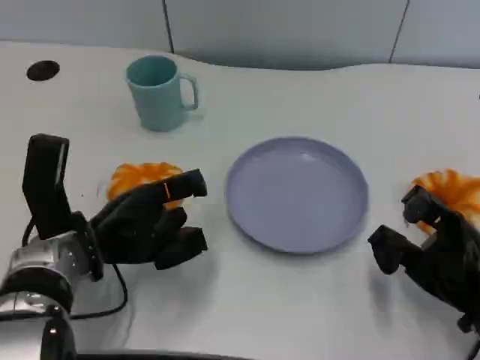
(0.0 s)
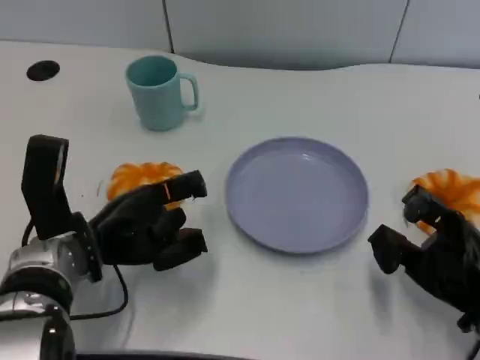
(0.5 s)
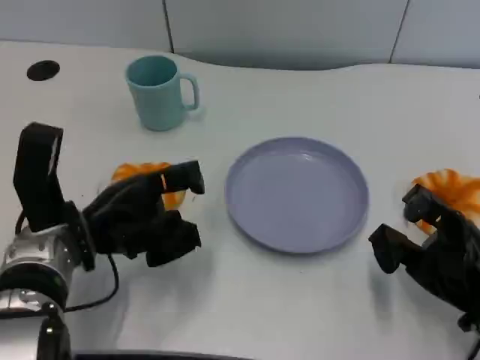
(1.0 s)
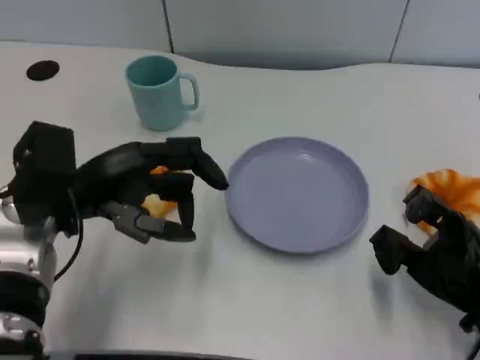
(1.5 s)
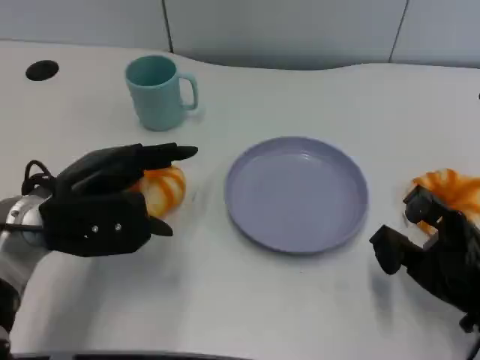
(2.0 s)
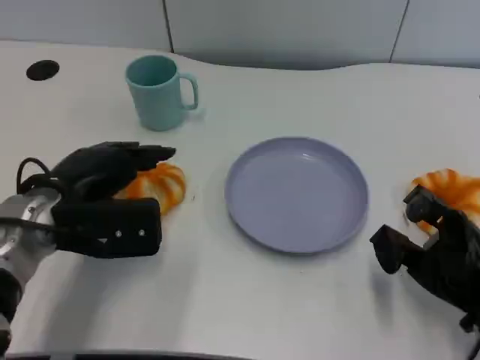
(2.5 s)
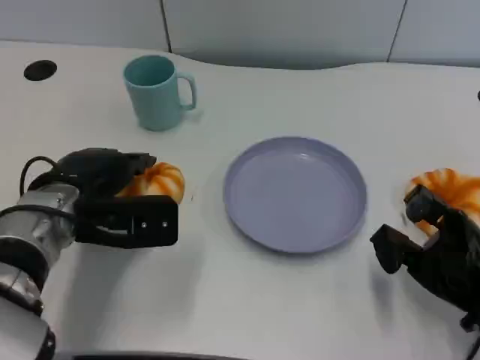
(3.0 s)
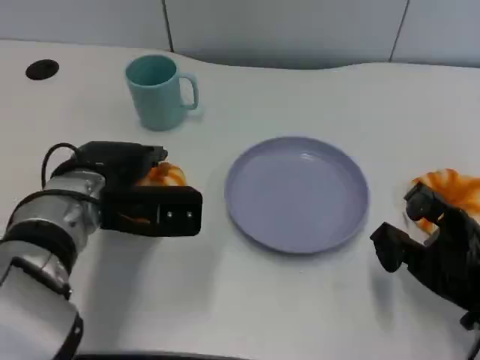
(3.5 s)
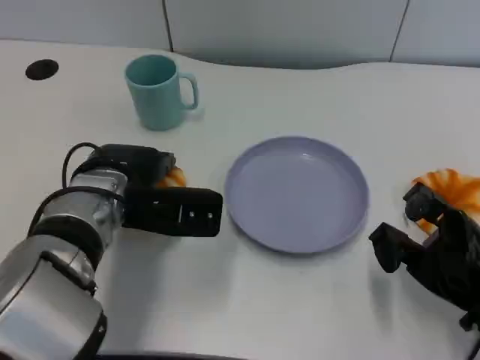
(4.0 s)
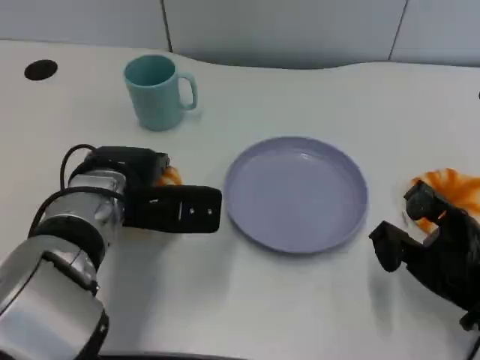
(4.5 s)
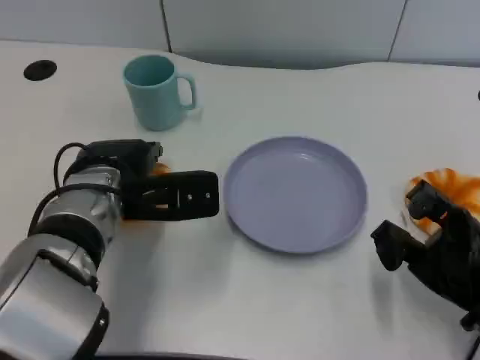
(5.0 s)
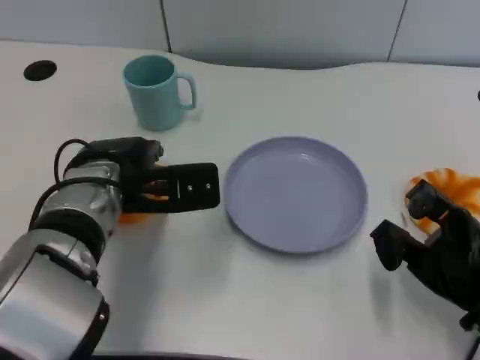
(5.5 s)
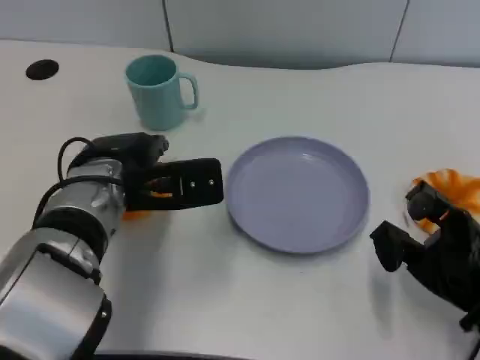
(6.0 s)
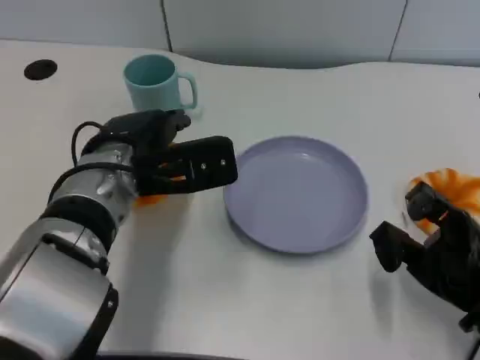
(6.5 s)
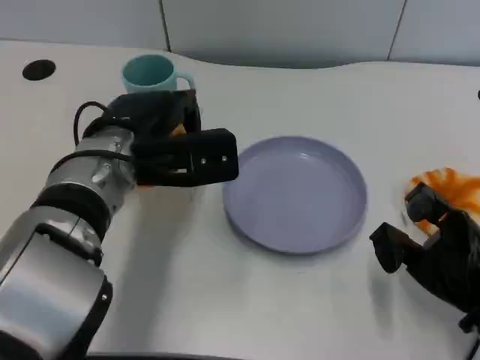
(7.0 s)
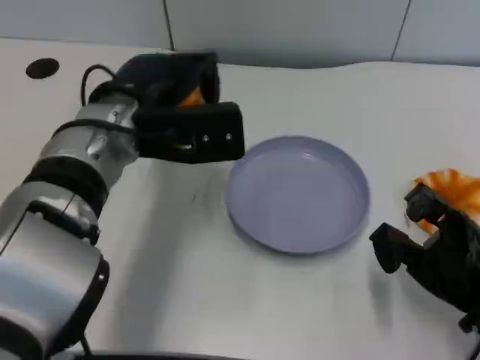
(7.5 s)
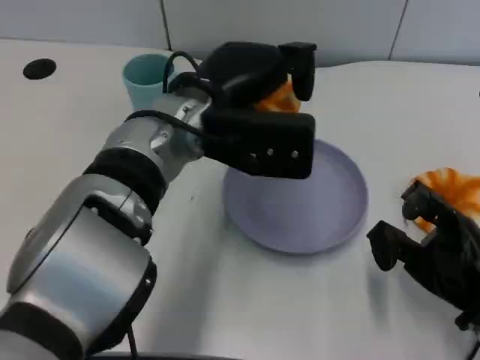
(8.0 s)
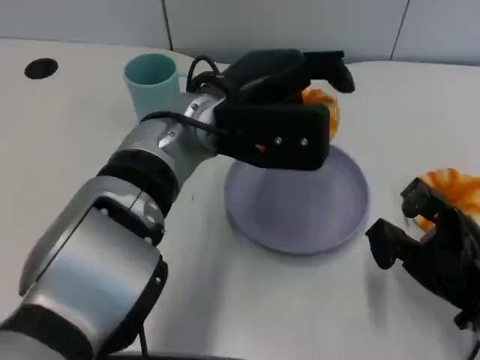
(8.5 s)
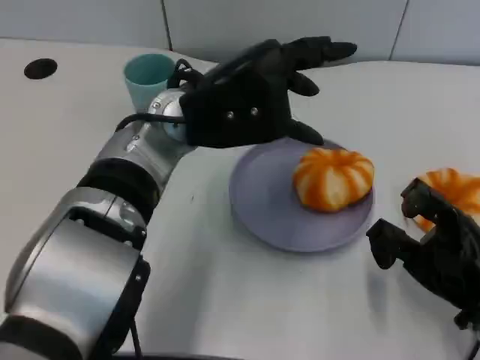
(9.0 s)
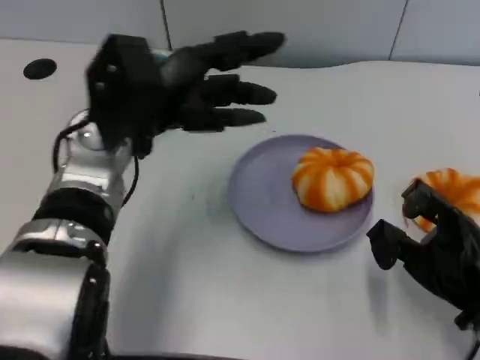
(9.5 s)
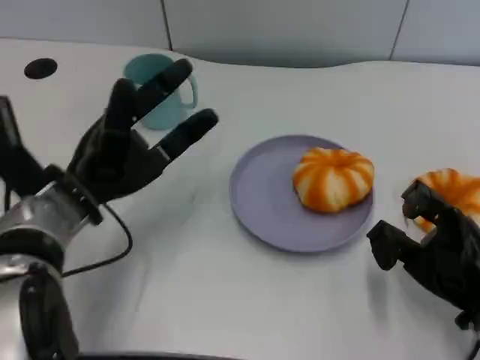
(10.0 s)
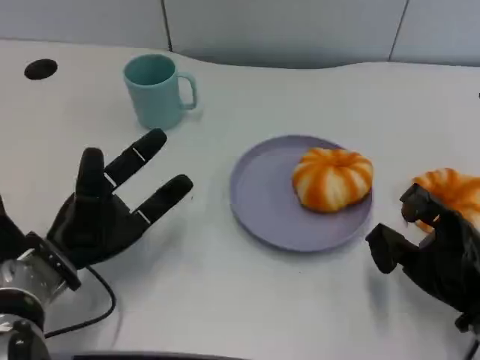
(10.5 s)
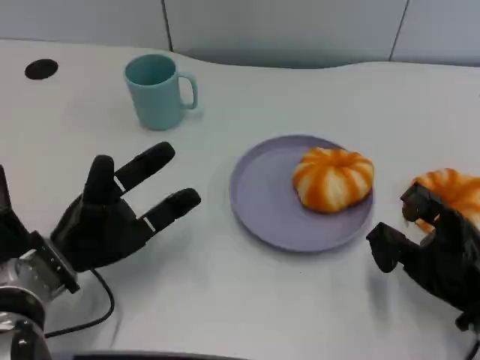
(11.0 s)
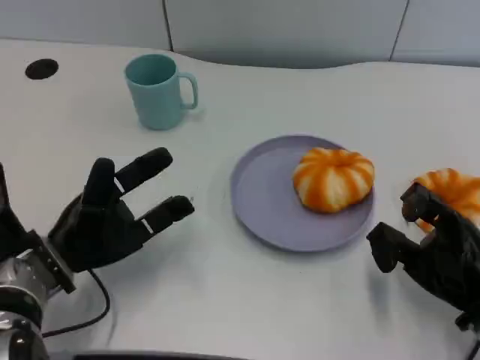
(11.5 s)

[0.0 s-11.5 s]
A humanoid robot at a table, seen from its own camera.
Task of the whole recording: Grasp the bread from the table and place it into the plate.
0.0 to 2.0 s: The left hand heads upward, covering about 5 cm.
2.0 to 4.0 s: The left hand goes some 5 cm to the right.
4.0 to 6.0 s: The hands move only a little.
6.0 to 7.5 s: The left hand goes some 5 cm upward.
7.5 to 9.5 s: The left hand travels to the right and back again, about 5 cm each way.
9.5 to 11.5 s: The left hand is displaced downward, to the left and backward by some 15 cm.

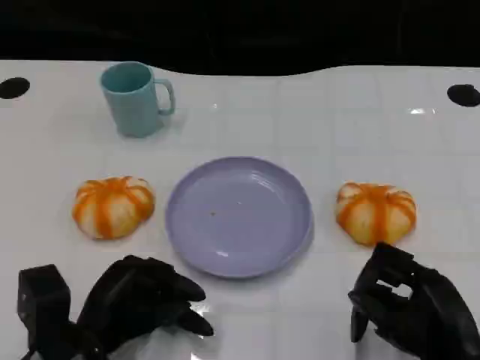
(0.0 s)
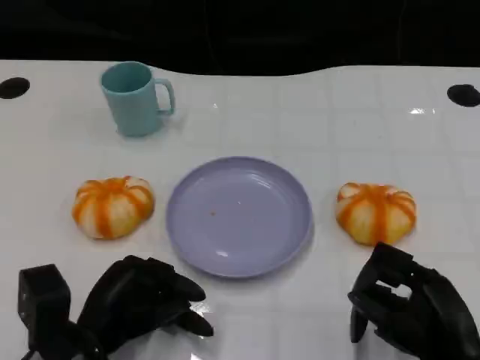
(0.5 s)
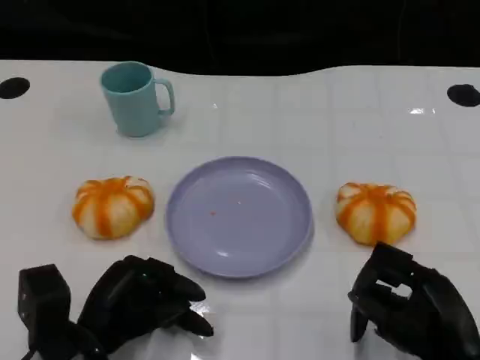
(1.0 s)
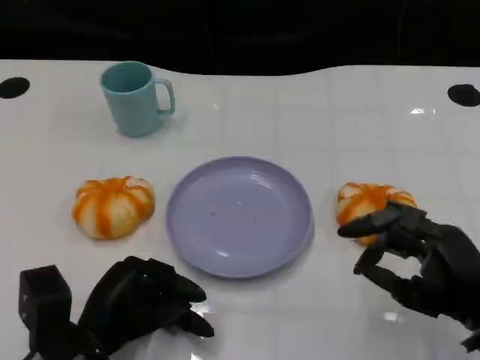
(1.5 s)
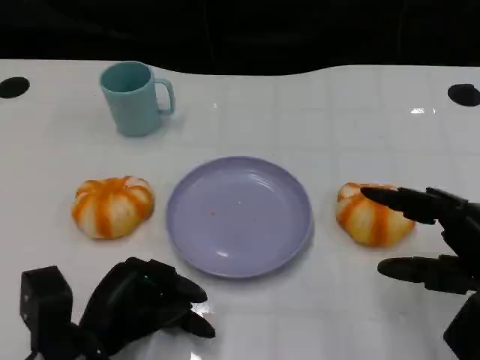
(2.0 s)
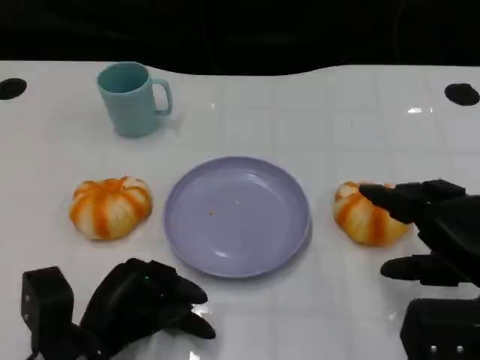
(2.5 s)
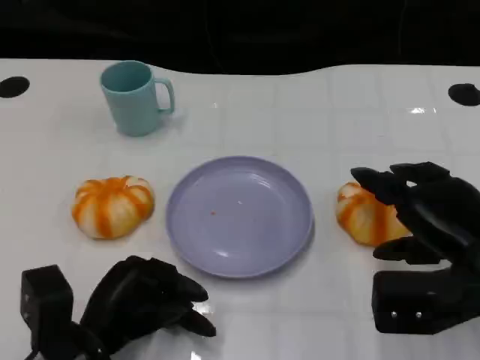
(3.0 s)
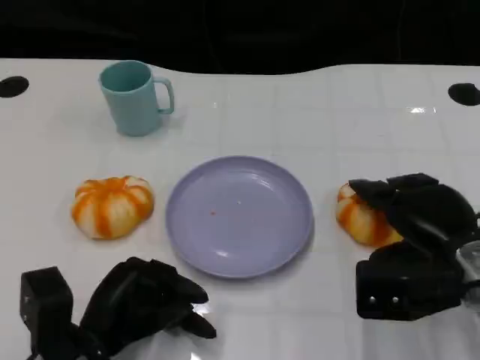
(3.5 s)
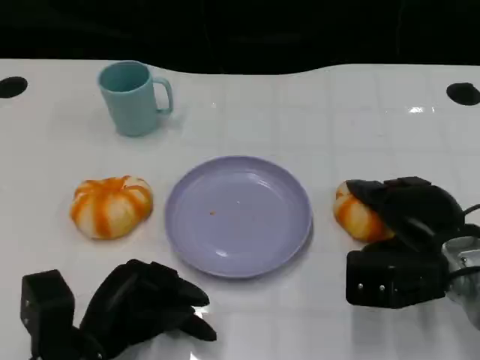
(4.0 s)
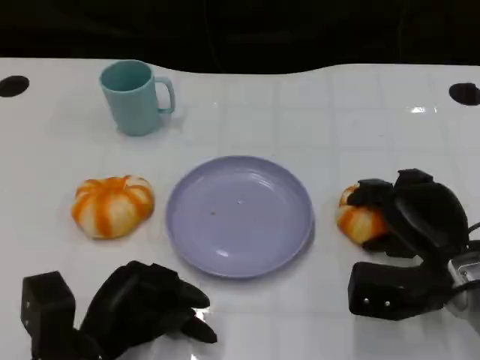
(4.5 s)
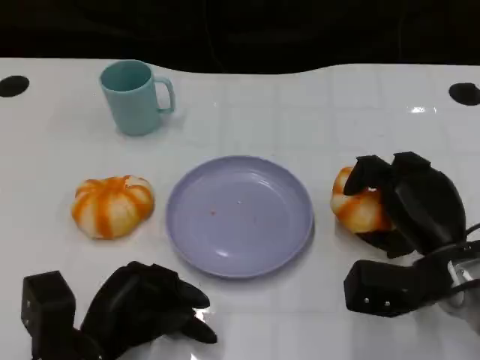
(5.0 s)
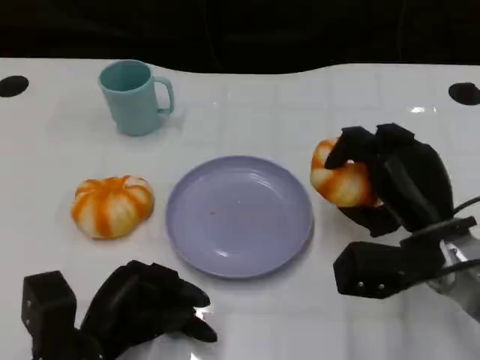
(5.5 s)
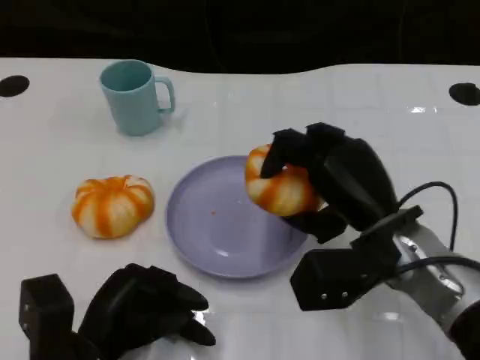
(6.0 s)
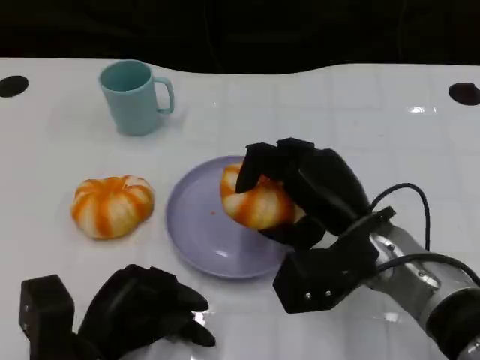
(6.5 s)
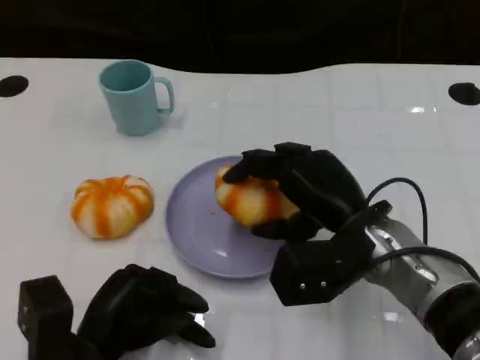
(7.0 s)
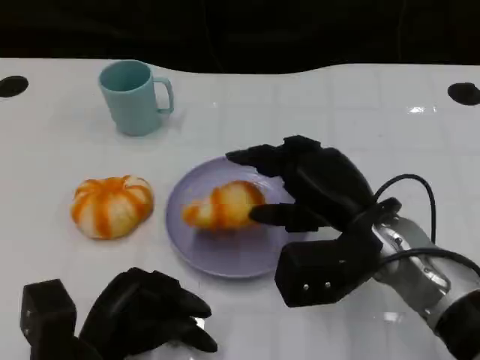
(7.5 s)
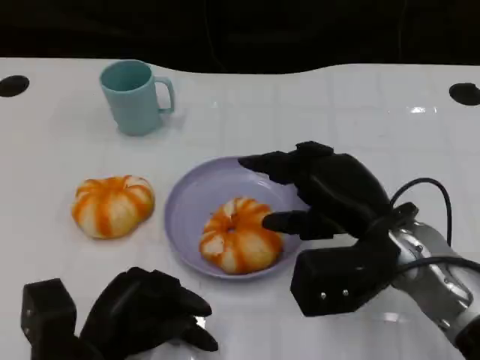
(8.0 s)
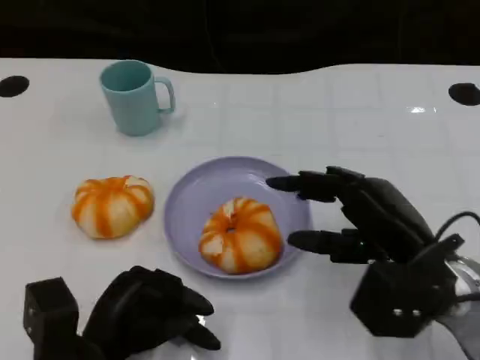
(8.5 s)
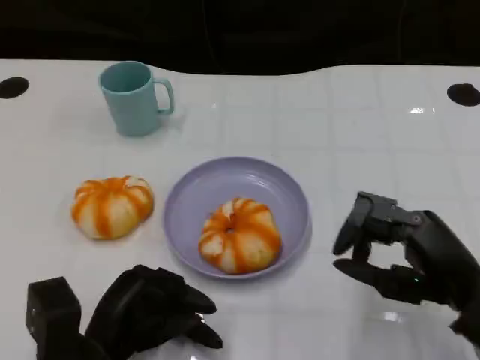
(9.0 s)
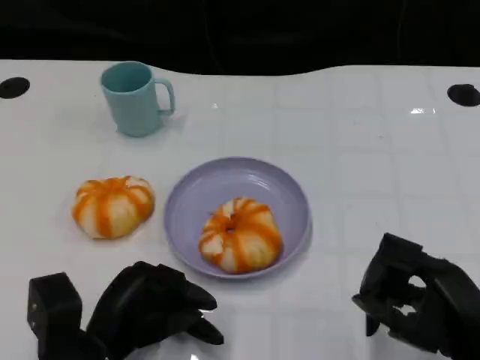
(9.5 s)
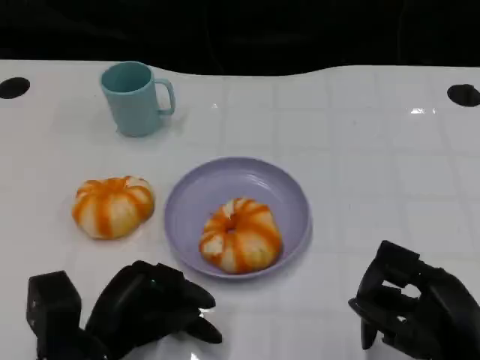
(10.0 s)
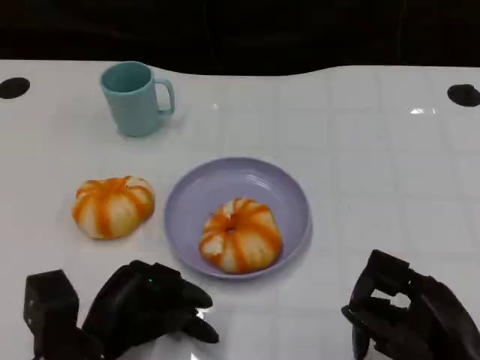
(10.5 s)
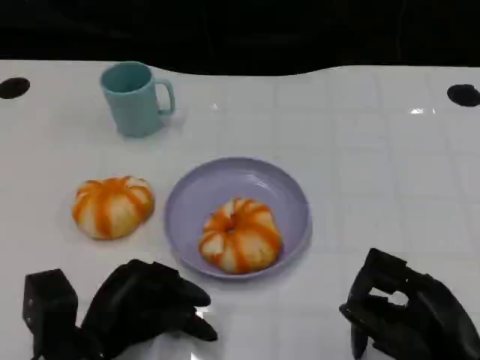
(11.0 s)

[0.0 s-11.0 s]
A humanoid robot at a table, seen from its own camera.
Task of the whole recording: Grasp the bread from the table and place it into the plate.
0.0 to 2.0 s: The right hand goes approximately 5 cm upward.
2.0 to 3.5 s: The right hand is displaced forward by roughly 5 cm.
5.5 to 7.5 s: The right hand travels to the left by about 5 cm.
7.5 to 9.0 s: The right hand travels to the right and backward by approximately 15 cm.
9.0 to 11.0 s: The right hand ends up approximately 5 cm from where it was.

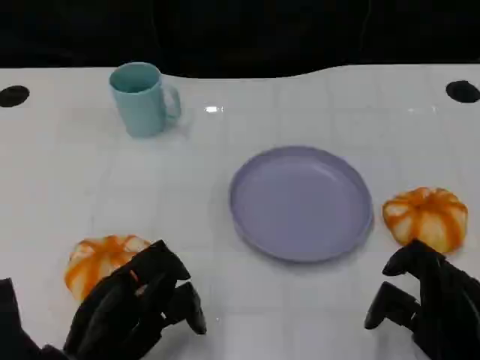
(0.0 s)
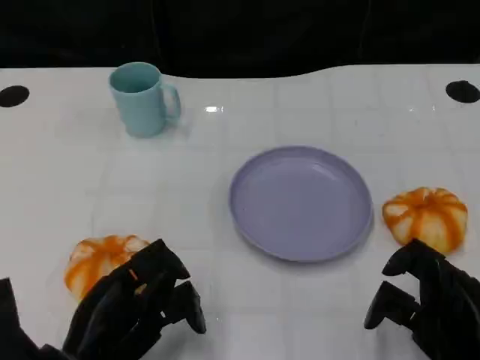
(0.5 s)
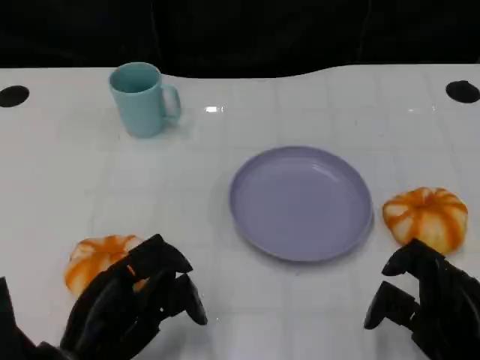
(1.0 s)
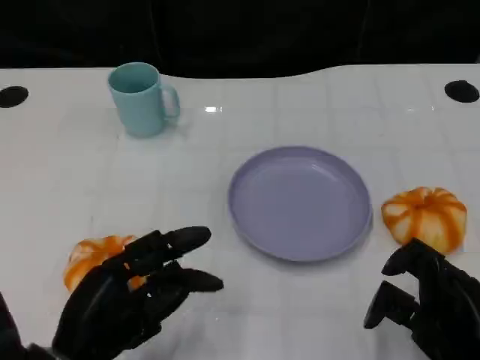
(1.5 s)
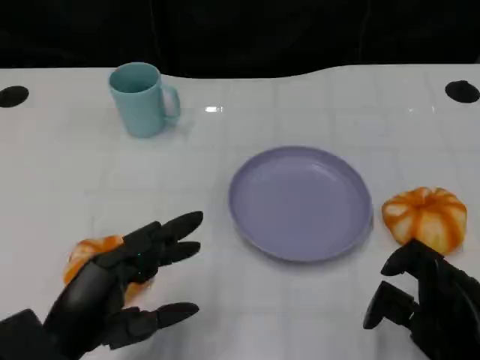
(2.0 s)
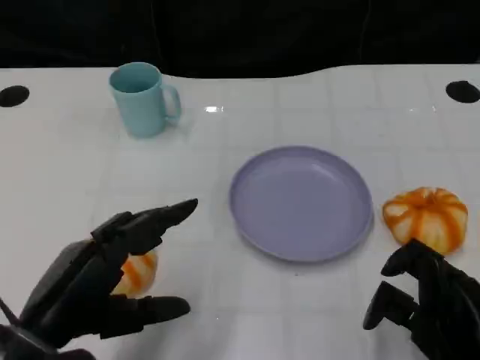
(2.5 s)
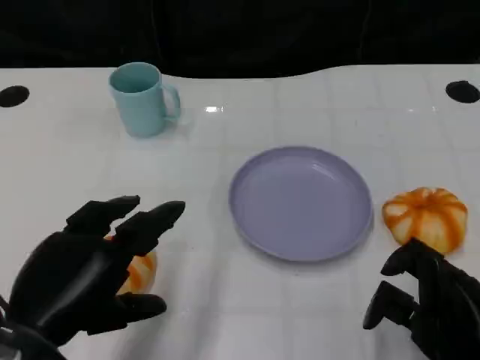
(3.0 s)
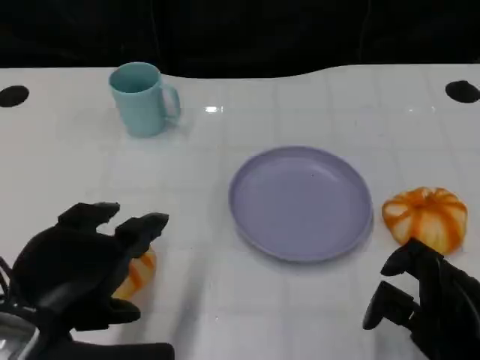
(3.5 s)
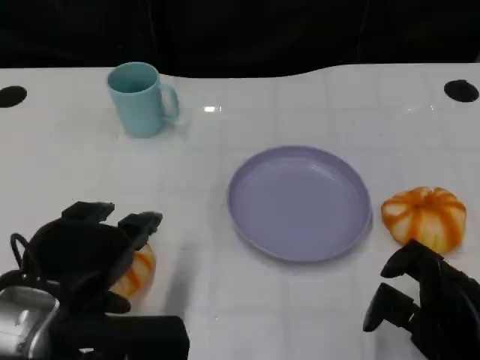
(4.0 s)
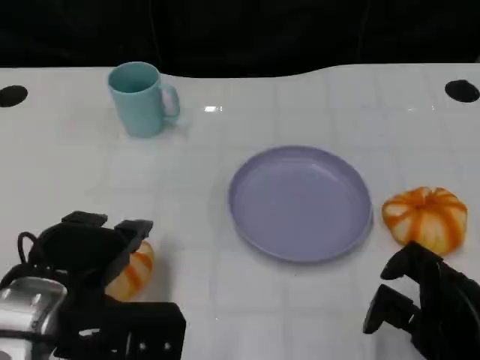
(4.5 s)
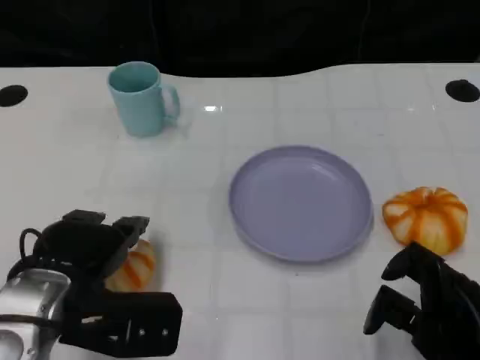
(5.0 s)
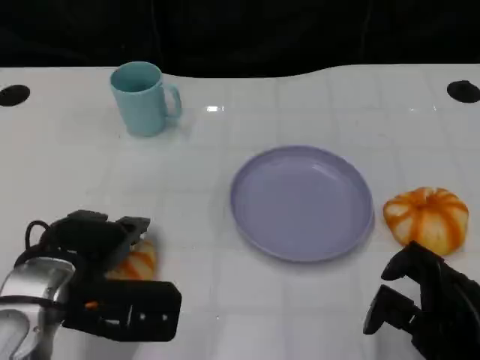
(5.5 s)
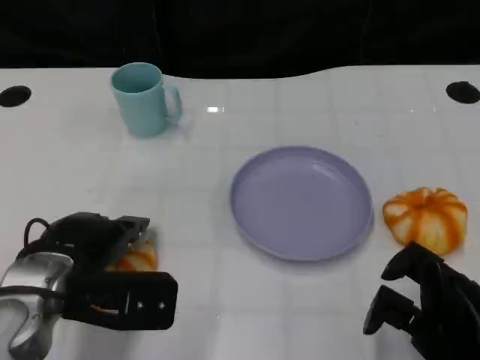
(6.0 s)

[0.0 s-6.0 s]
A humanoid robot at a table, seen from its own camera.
Task of the whole recording: Grasp the bread from the table and place it into the plate.
2.0 to 4.0 s: The left hand shifts approximately 5 cm upward.
4.0 to 6.0 s: The left hand goes roughly 10 cm forward and downward.
